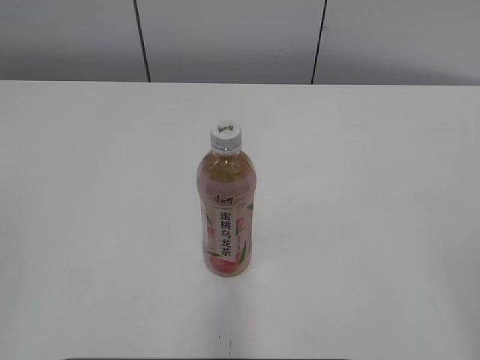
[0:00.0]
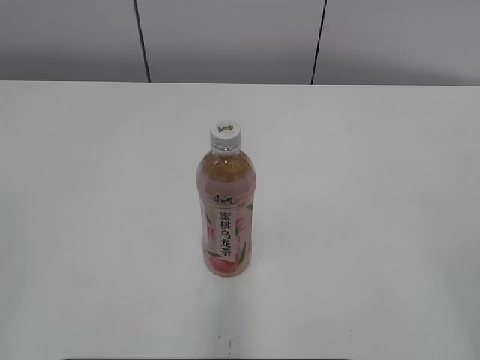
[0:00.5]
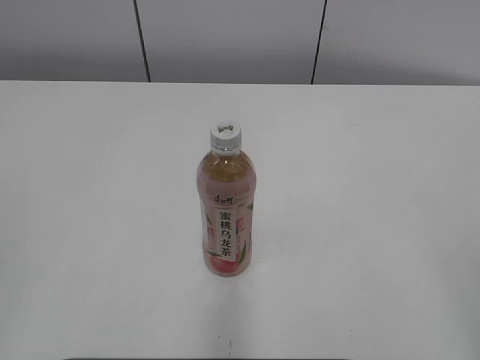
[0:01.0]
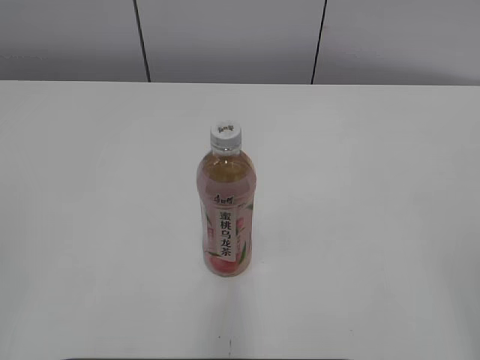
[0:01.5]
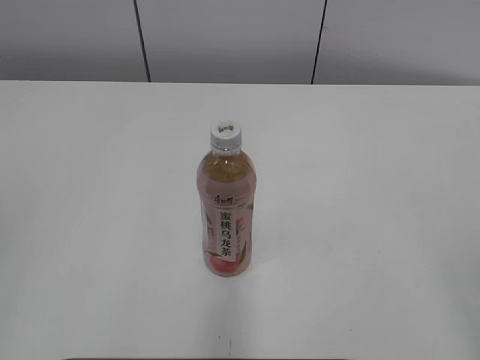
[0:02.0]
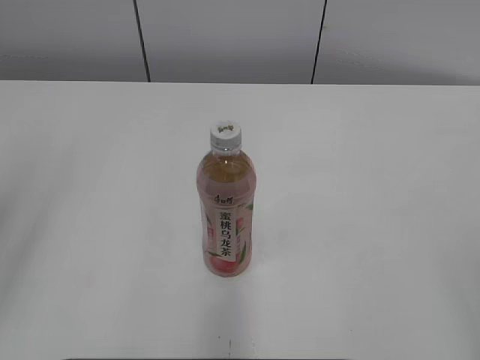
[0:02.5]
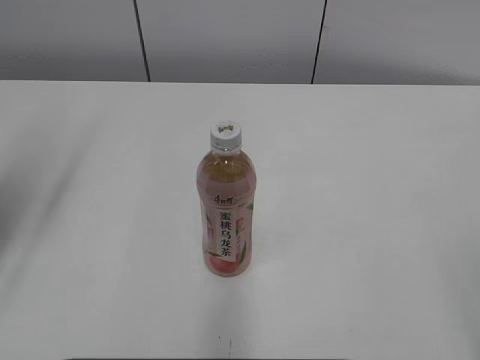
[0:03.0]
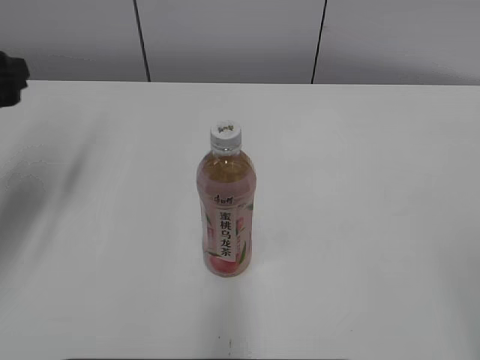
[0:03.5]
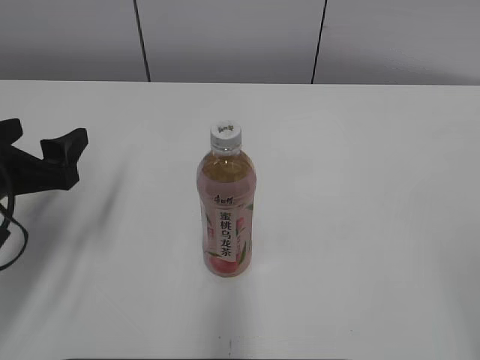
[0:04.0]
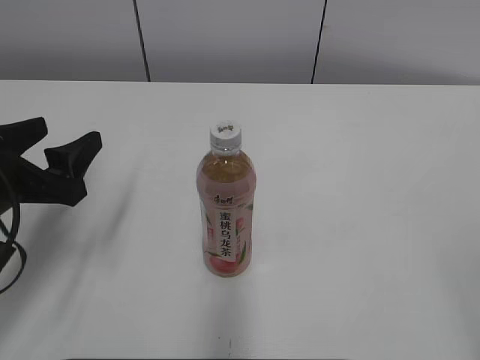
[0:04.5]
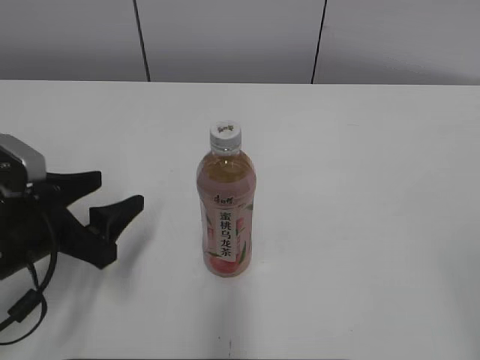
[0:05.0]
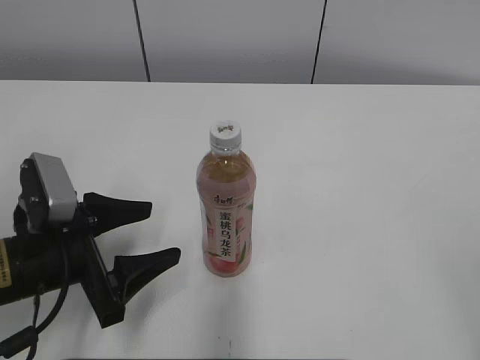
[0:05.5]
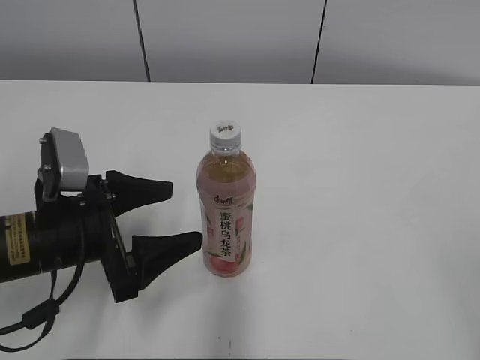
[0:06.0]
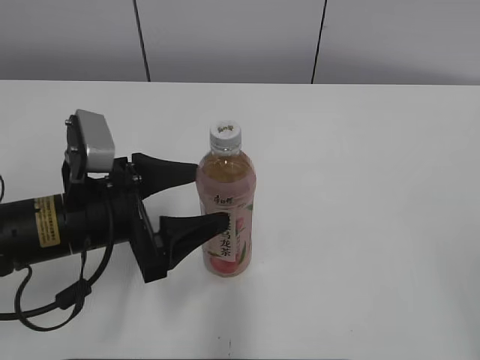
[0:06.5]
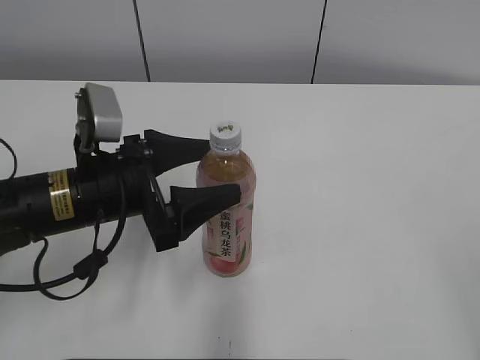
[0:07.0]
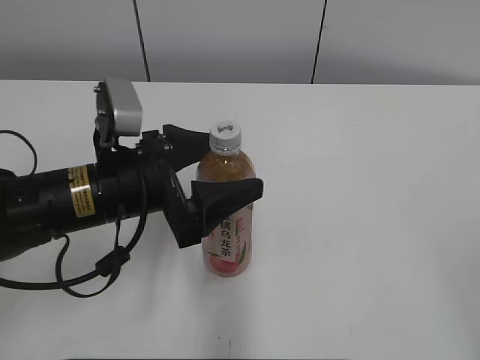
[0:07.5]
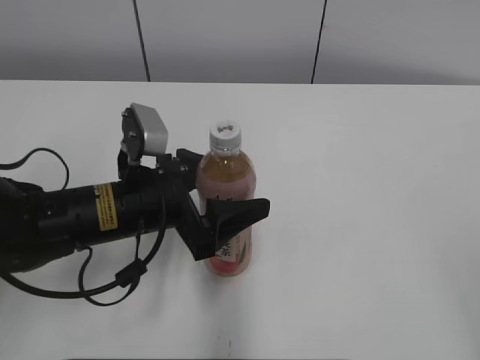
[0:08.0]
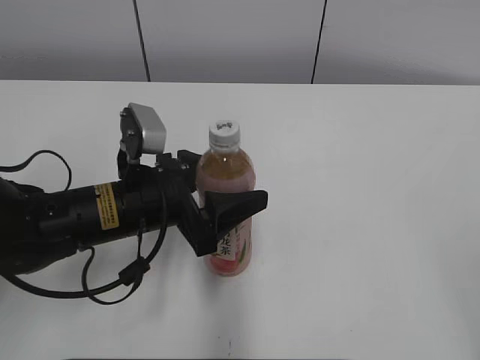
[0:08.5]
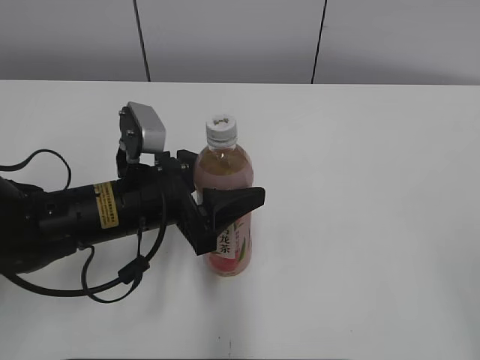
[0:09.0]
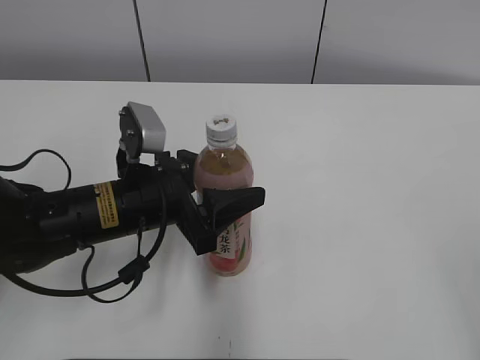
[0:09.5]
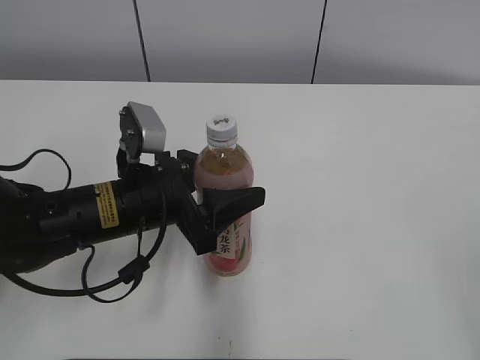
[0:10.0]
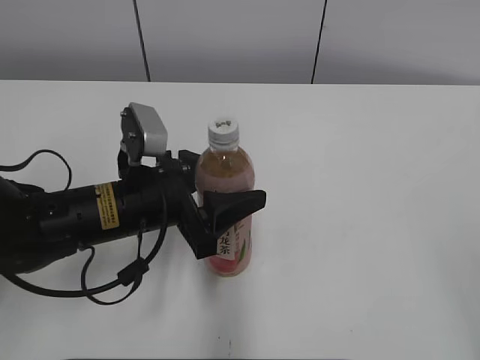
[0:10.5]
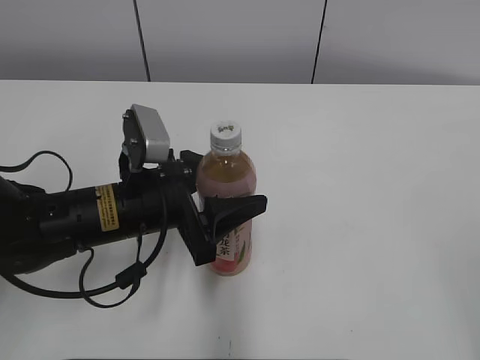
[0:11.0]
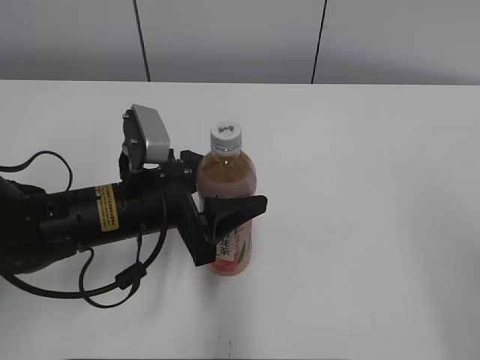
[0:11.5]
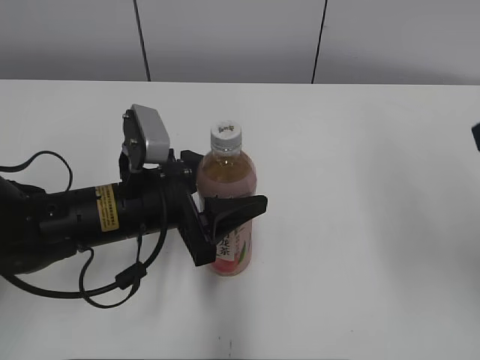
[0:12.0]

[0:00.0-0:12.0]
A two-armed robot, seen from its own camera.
Step, 0:00.0 to 0:08.5: Grab the Peach Oolong Tea with the left hand.
0:02.0 to 0:04.0: The left gripper moves forward and downward, approximately 30 cm, and opens up.
0:04.0 to 0:06.0: The left gripper heads to the right, covering roughly 5 cm.
0:06.0 to 0:08.0: The left gripper shifts roughly 5 cm to the right.
0:08.0 to 0:10.0: The left gripper closes its fingers.
0:10.0 to 0:12.0: The right gripper goes approximately 20 cm forward, and closes up.

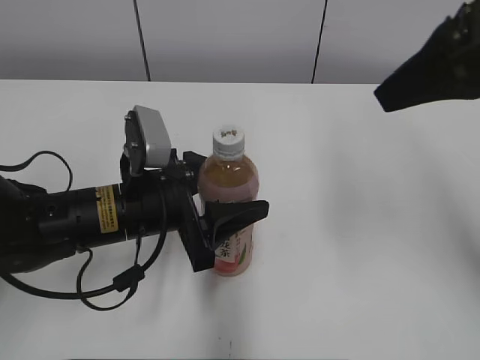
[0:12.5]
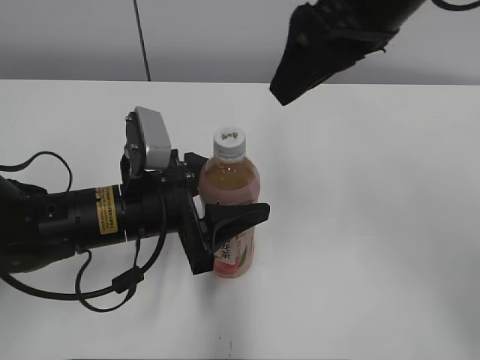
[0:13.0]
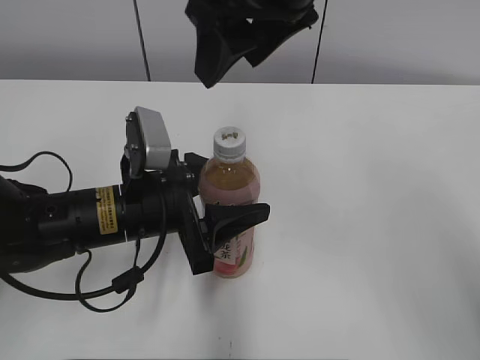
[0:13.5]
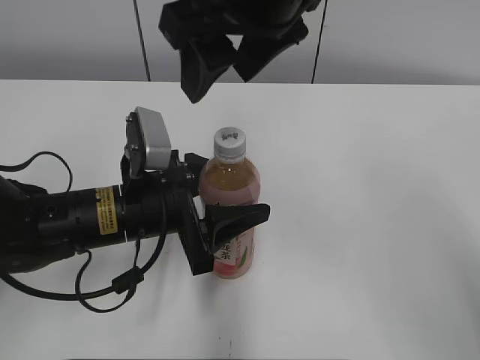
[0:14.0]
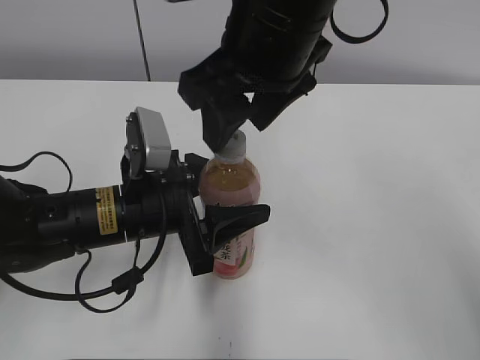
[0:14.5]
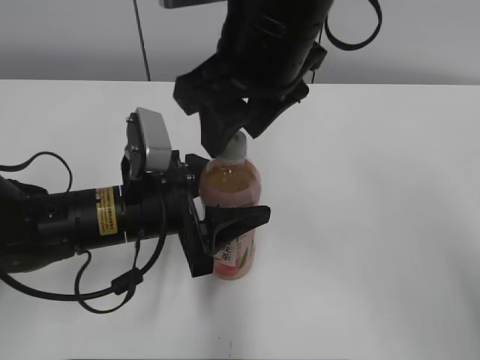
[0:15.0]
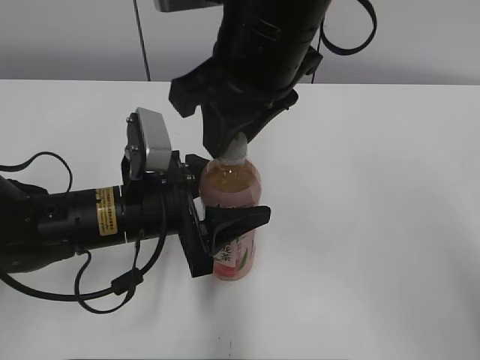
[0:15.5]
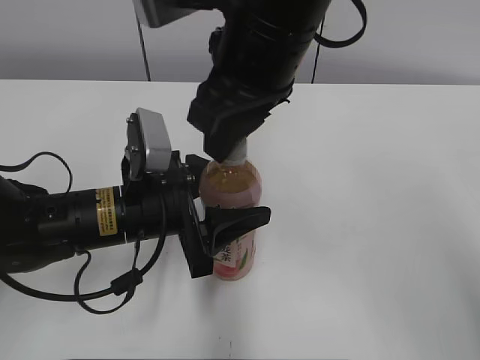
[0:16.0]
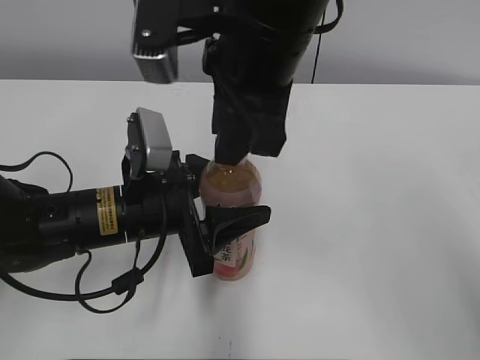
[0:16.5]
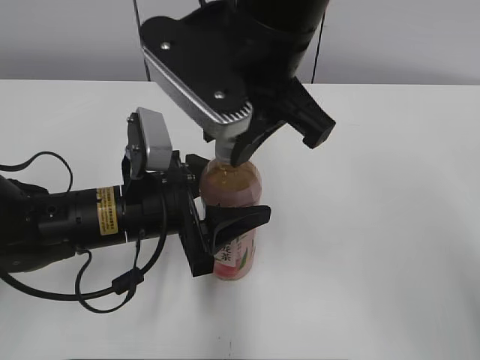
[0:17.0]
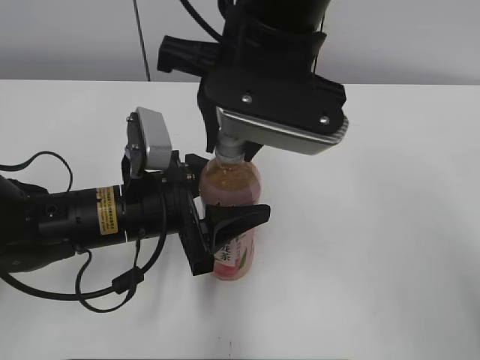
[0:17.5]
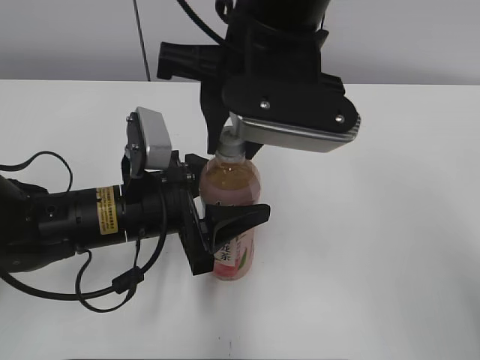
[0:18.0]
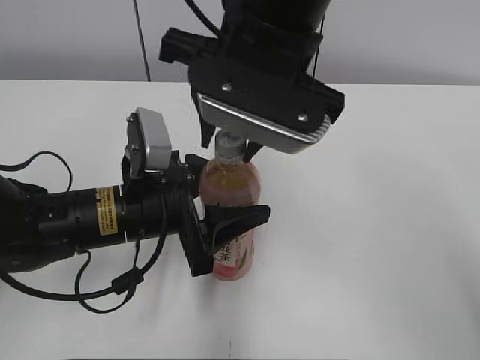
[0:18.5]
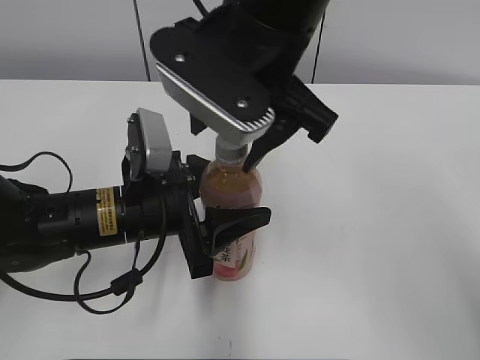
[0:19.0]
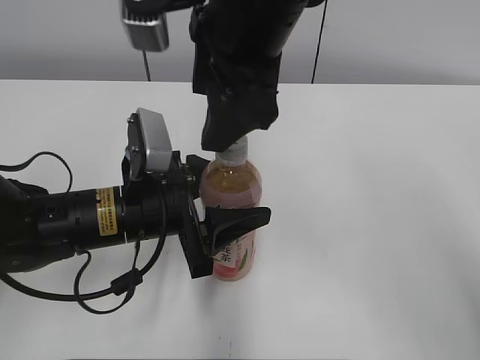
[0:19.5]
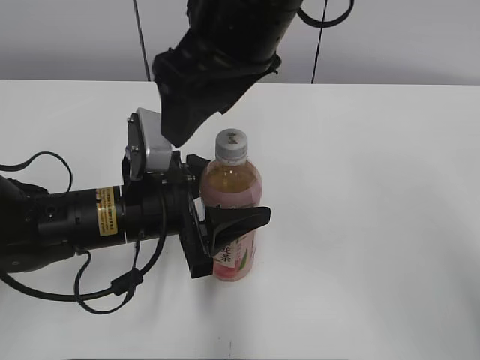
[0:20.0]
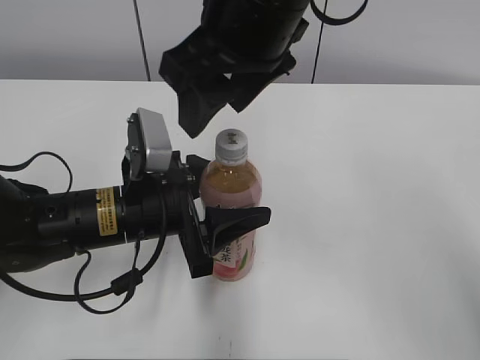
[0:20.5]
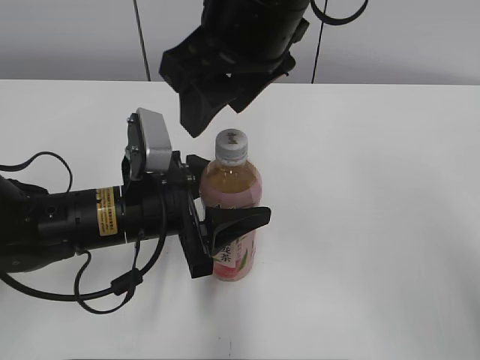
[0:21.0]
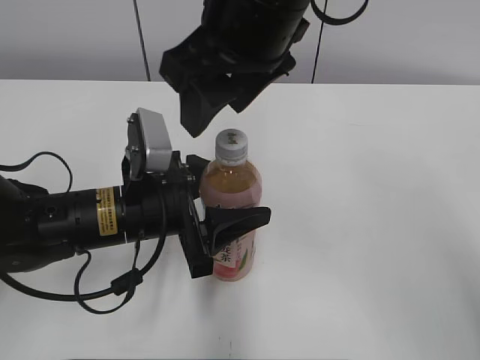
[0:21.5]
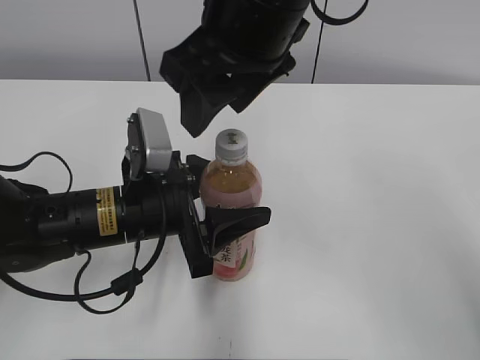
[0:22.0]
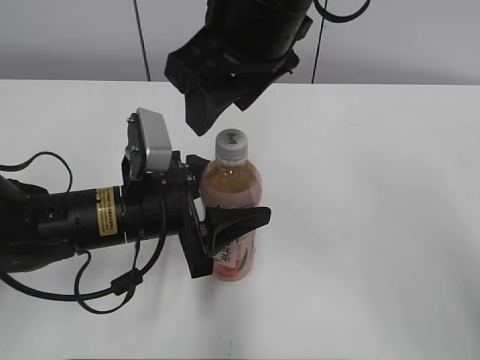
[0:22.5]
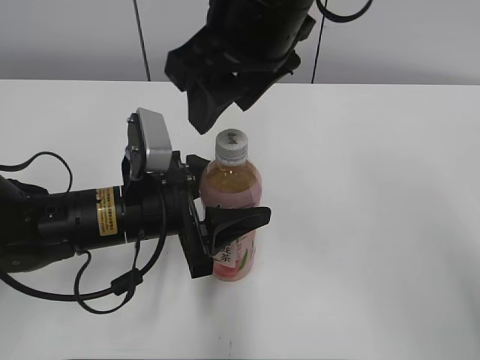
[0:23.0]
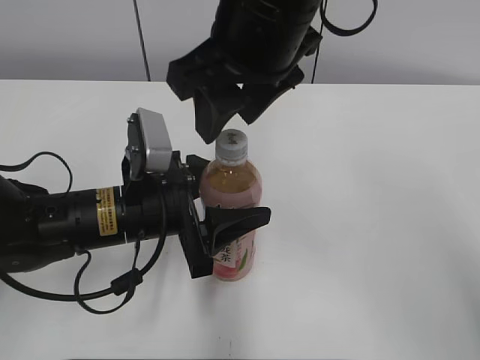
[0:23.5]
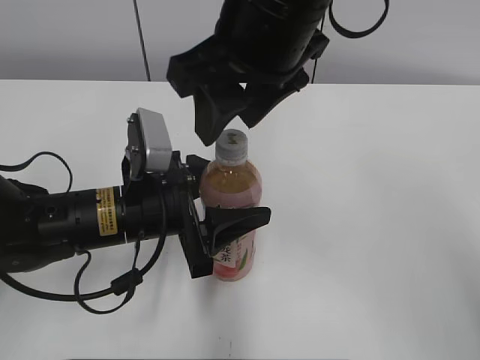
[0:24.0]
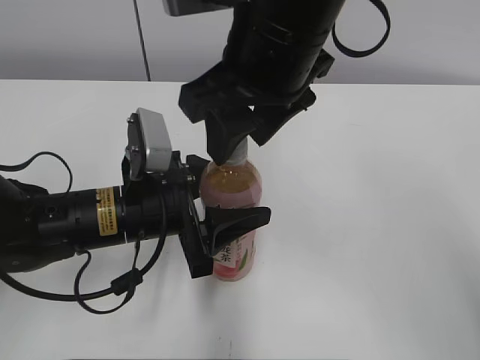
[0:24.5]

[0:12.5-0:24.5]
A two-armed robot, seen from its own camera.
0:12.5 to 0:14.5: The right gripper is displaced to the left by about 20 cm, and opens.
0:14.5 to 0:16.5: The right gripper closes its fingers.
0:18.5 to 0:20.5: The right gripper opens up.
0:20.5 to 0:22.5: Both grippers stay about where they are.
0:22.5 to 0:24.5: The grippers make only small movements.

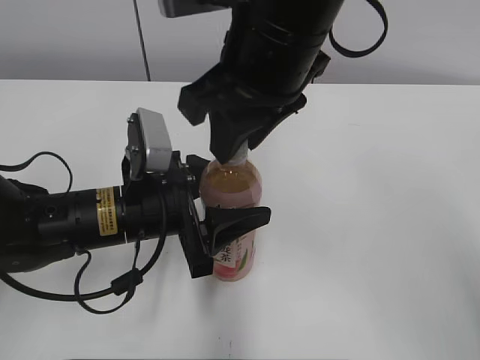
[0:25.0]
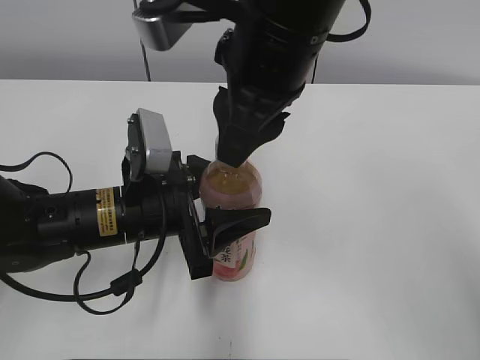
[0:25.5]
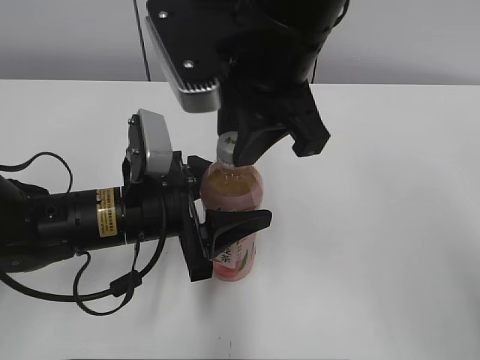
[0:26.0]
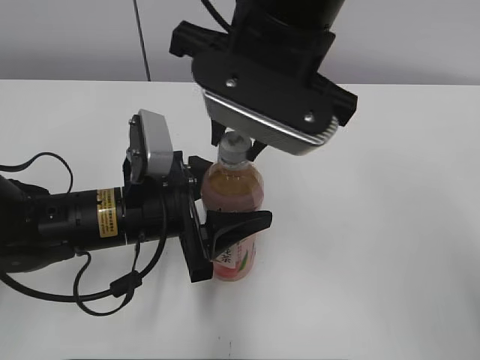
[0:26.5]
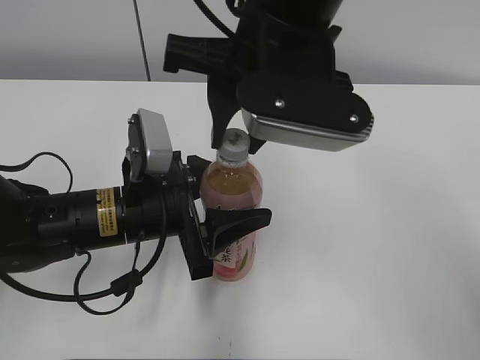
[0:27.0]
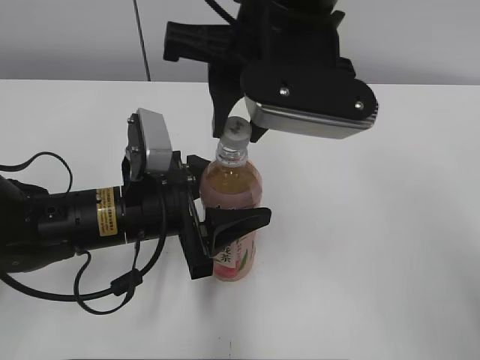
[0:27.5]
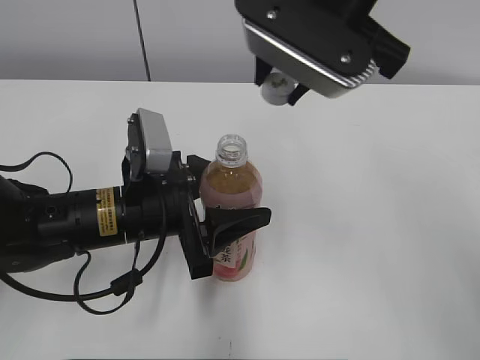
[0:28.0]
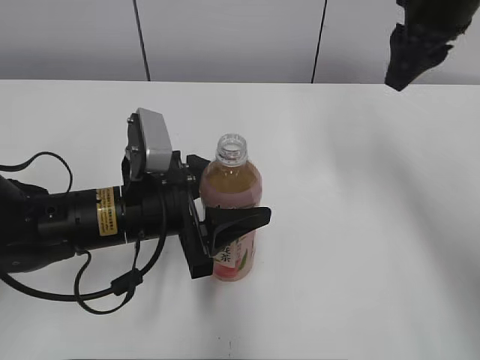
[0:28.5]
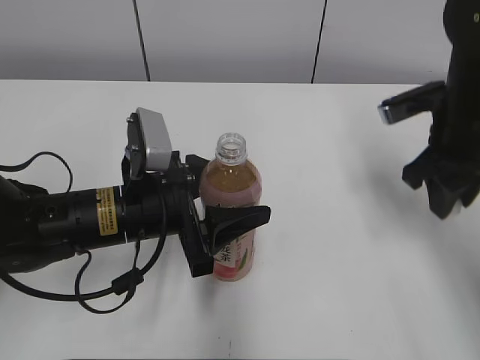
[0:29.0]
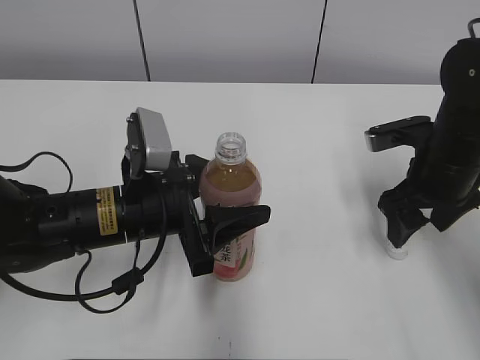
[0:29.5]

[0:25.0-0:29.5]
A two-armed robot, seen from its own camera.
Step, 0:25.0 to 0:27.0: Secure the Peach Oolong Tea with the left hand.
0:27.0 to 0:29.5: The right gripper goes approximately 25 cm to the right and downward, and opens its fingers.
